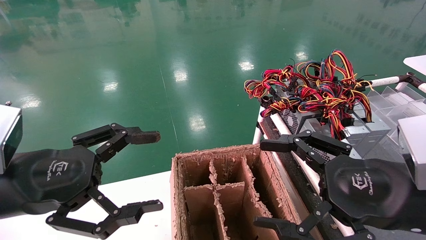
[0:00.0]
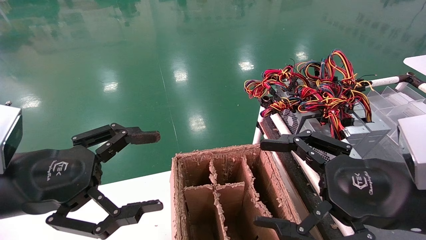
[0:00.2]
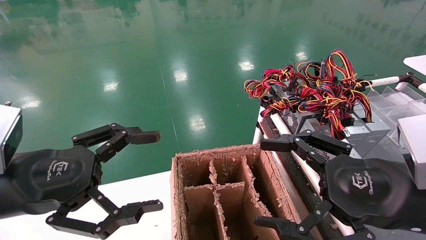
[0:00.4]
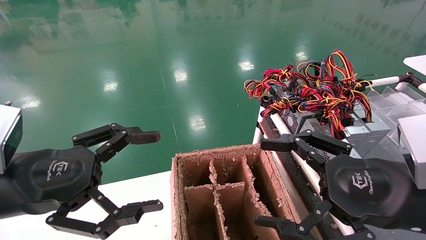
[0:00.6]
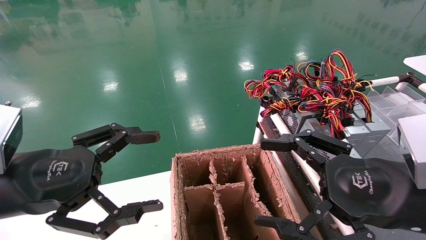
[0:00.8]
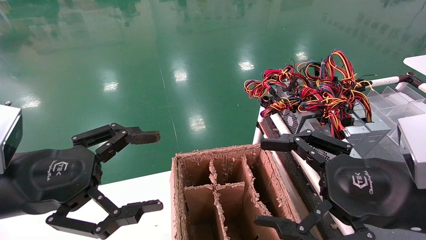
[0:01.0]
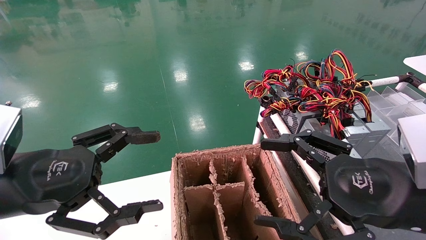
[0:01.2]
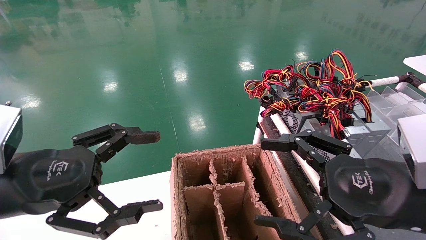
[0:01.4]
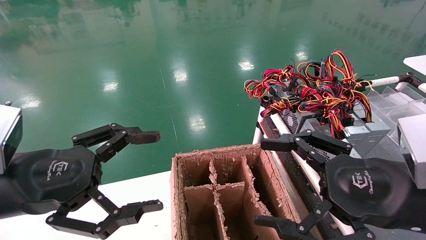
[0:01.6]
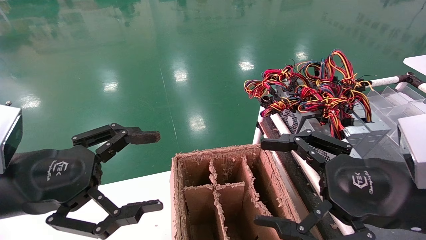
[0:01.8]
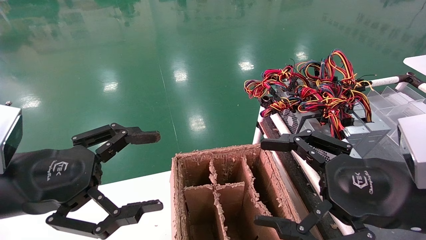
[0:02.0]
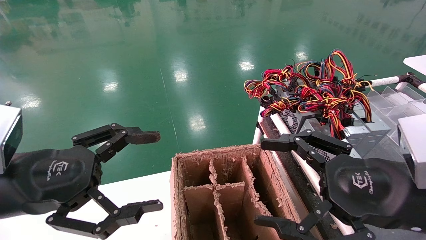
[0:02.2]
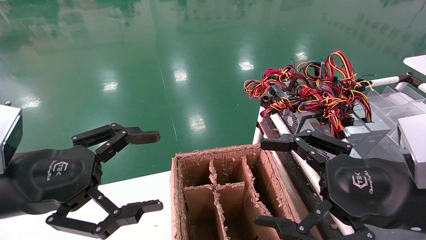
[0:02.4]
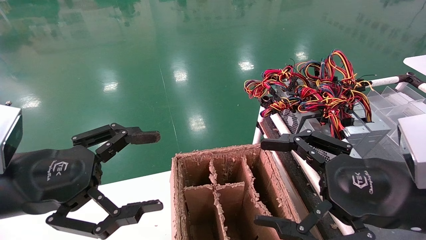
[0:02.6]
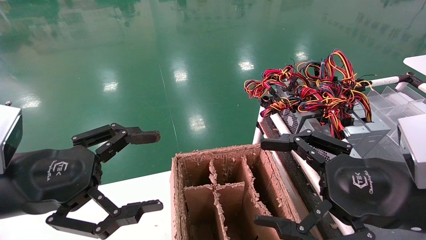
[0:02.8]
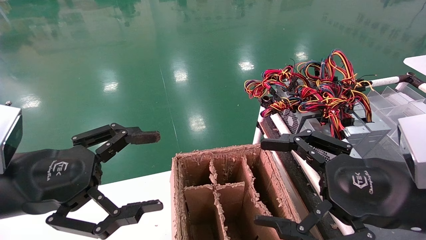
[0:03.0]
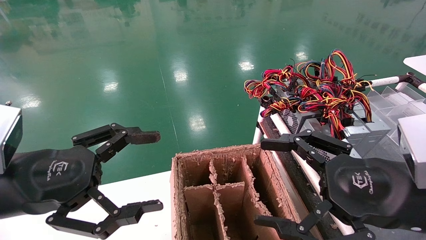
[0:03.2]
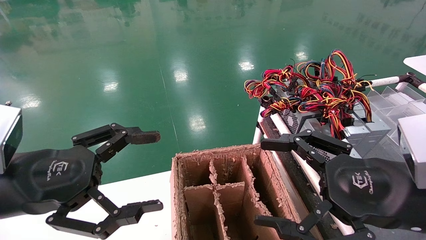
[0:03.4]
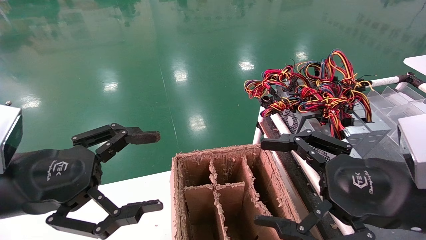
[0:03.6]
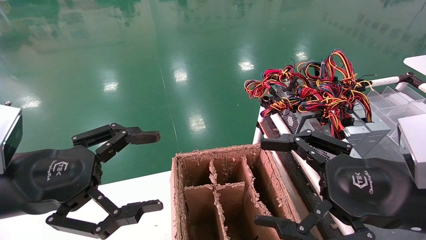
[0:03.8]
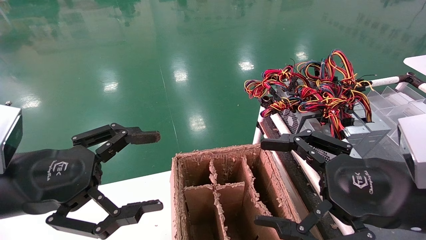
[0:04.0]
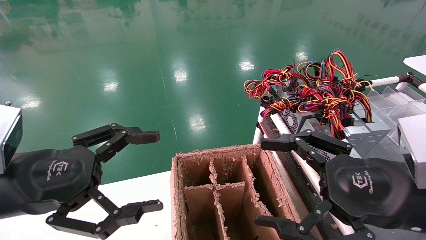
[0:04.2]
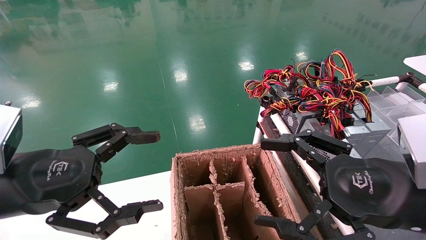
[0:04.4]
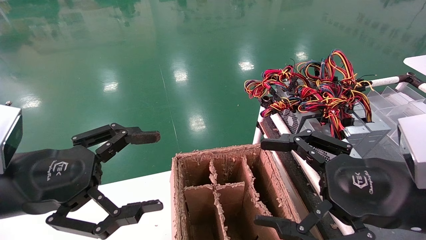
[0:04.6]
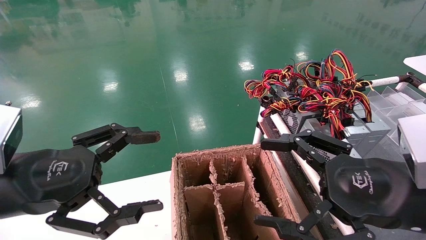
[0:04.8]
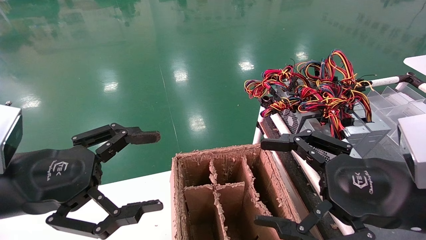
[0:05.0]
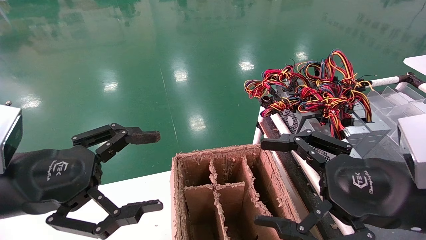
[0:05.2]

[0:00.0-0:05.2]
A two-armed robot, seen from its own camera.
0:00.0 to 0:05.2: Neither gripper changes place.
